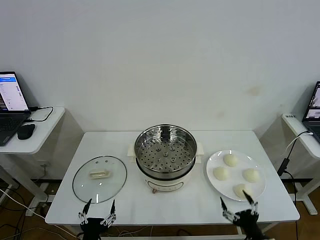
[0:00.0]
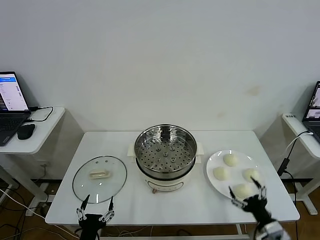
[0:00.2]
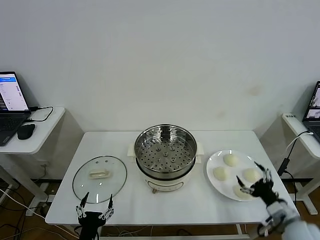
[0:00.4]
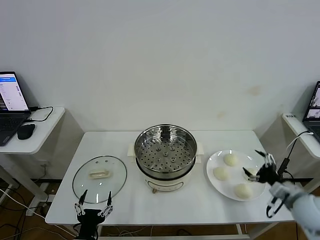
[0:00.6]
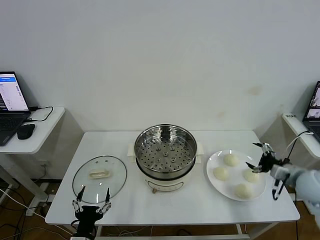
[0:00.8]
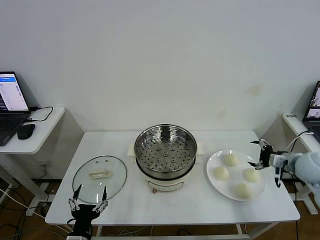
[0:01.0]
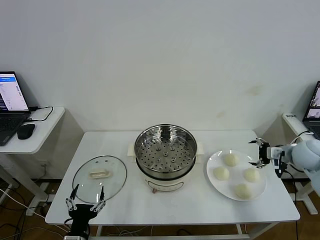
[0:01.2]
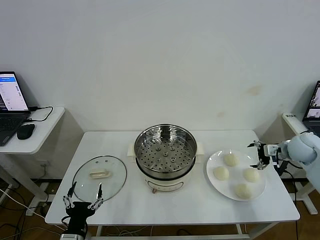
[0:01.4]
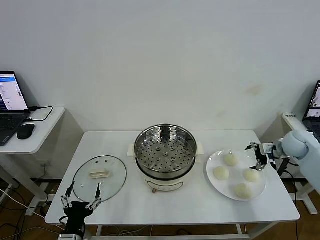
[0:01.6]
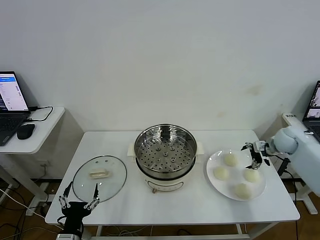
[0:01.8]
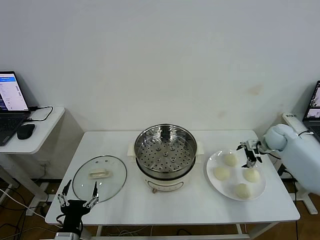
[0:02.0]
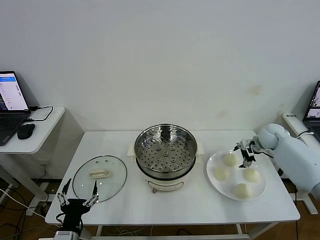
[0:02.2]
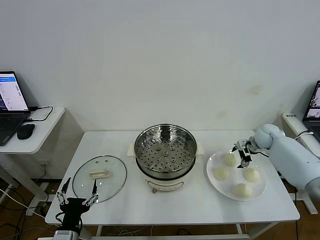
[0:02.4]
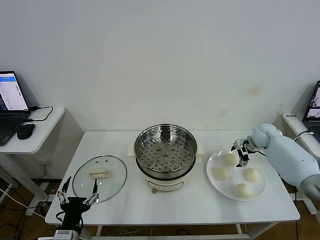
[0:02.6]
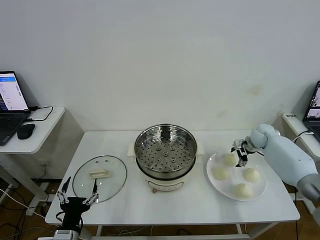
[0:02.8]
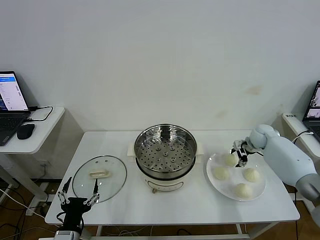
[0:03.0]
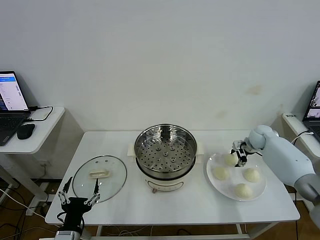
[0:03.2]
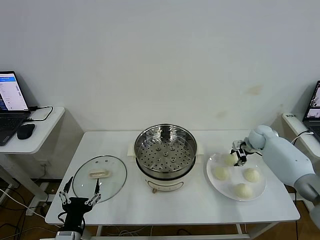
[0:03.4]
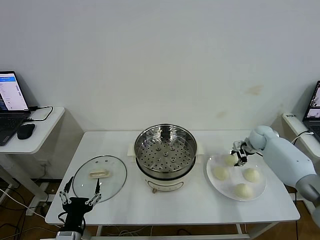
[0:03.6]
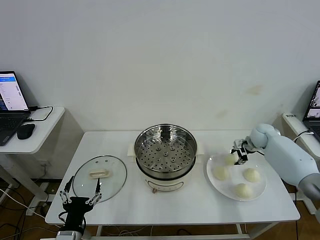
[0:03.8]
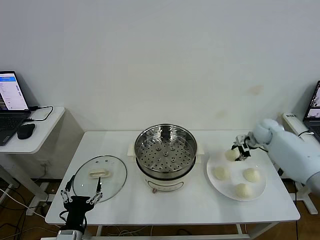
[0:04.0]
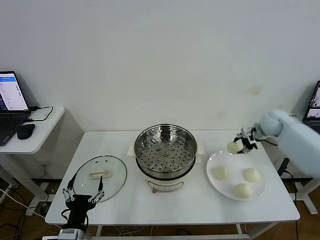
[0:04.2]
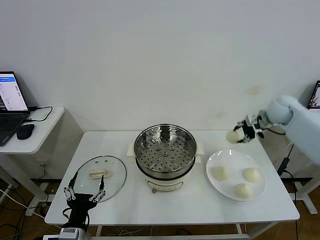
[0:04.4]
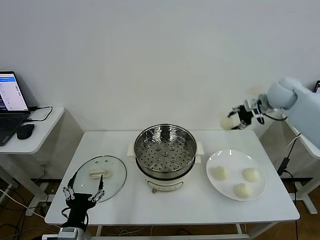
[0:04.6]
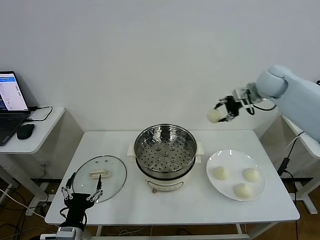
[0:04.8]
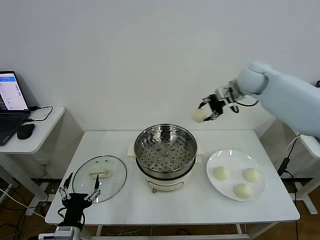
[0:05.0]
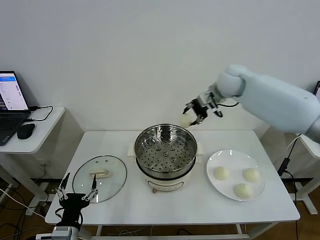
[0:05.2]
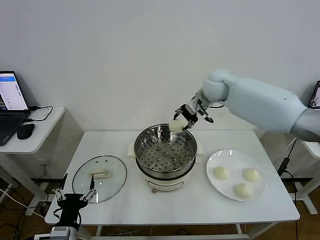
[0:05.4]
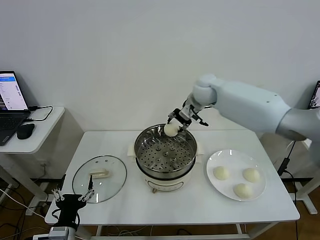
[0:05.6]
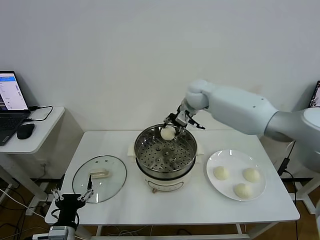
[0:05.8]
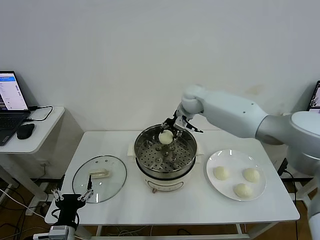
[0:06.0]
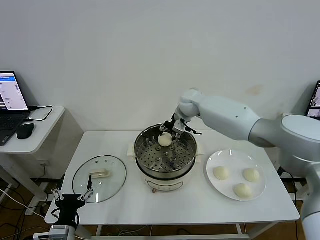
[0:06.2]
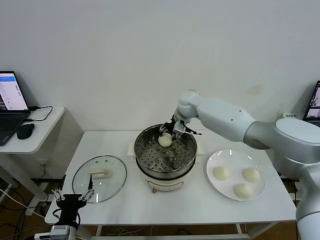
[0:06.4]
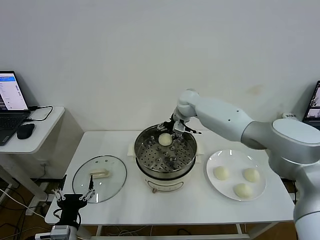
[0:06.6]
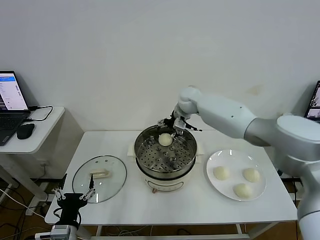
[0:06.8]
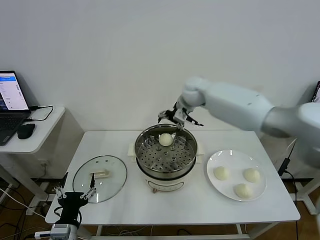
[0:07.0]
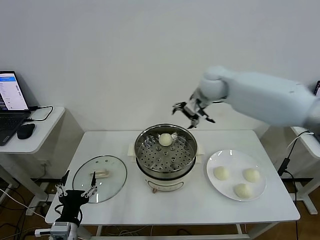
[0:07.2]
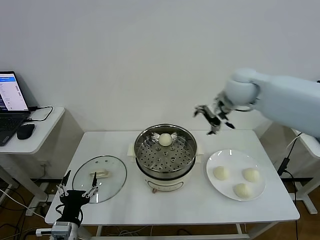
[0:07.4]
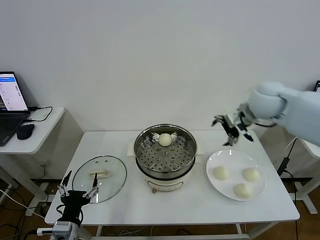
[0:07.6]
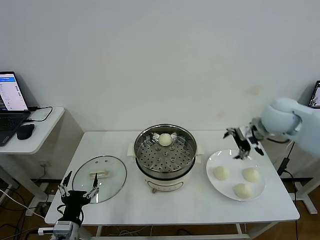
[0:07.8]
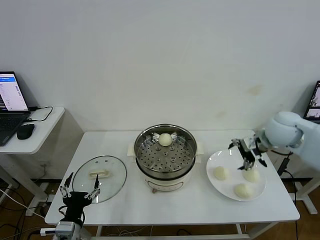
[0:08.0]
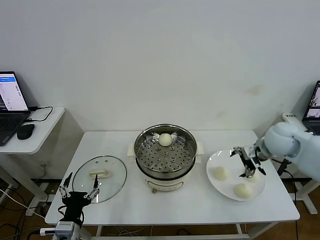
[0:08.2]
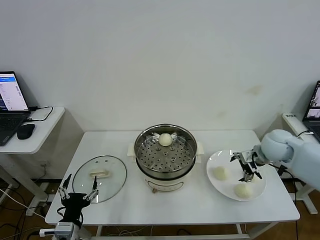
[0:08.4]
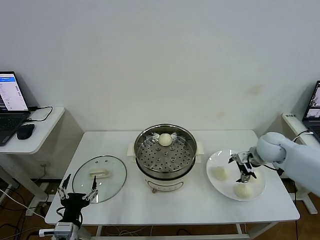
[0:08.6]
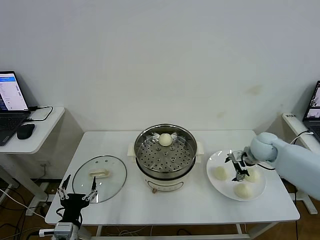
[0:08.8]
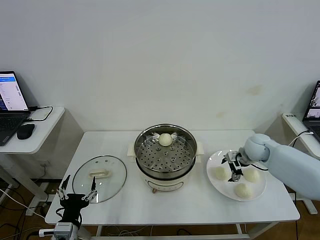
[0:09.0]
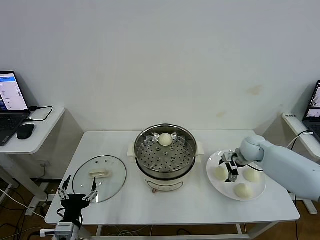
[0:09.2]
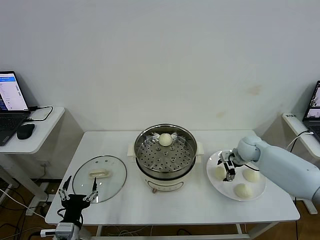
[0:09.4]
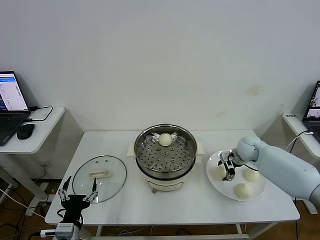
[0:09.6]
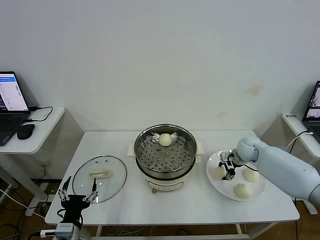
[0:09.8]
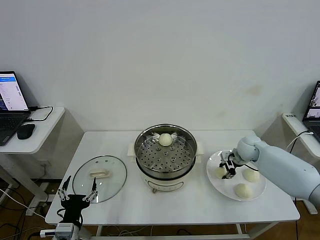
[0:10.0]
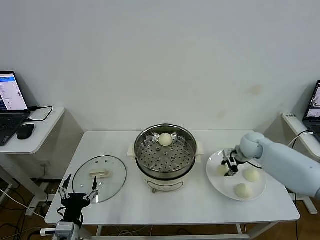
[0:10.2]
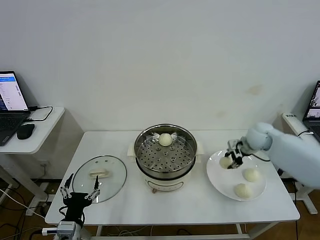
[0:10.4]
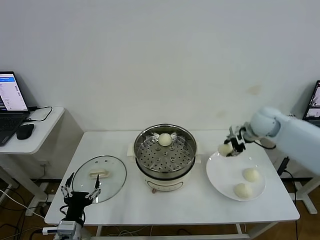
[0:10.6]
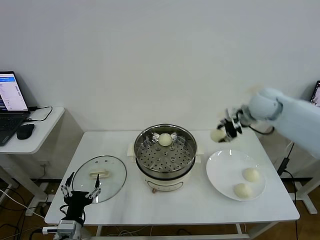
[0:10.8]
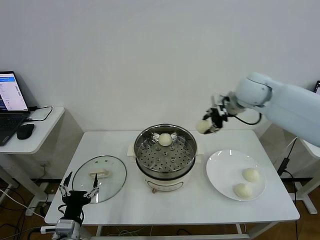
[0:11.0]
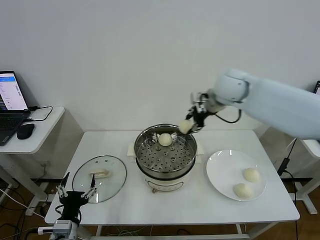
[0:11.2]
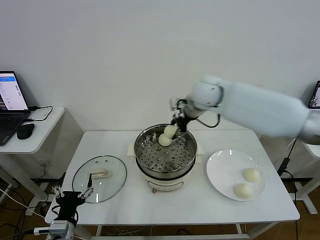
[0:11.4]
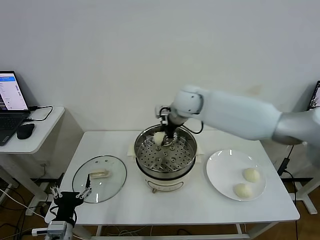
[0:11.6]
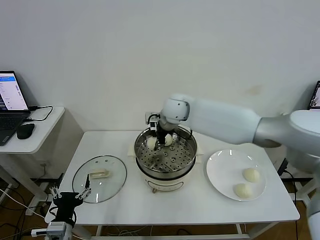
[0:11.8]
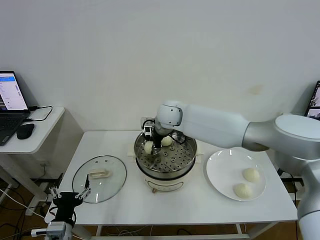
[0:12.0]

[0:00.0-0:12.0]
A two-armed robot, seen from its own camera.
Step, 0.0 to 3.8 s: Grasp the baozi in the plate with right gripper.
Step, 4.0 to 7.0 s: Place the baozi on the steamer with right gripper.
Step, 7.4 to 10.0 s: Grasp the baozi in the plate with right gripper.
1.6 to 3.0 s: The right gripper heads forward, downward and to the left, covering roughly 15 cm, and closes.
3.0 to 4.4 s: The right gripper moves upward, approximately 15 cm, and closes its fingers.
4.4 to 6.0 s: The right gripper heads to the left, covering some 30 cm.
6.0 to 7.6 s: The right gripper travels to the right, backward and upward by approximately 25 cm, and opens its fingers.
7.6 to 9.0 s: The right gripper travels downward by roughly 20 cm.
9.0 to 10.4 s: The right gripper closes.
10.4 to 12.0 s: The right gripper moves to the left, about 35 cm.

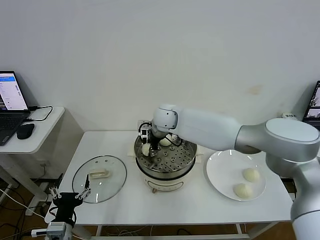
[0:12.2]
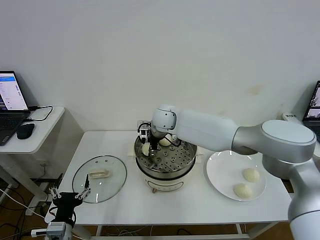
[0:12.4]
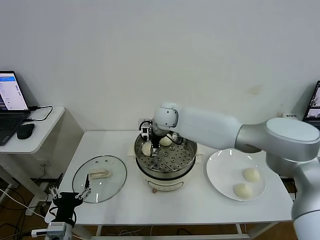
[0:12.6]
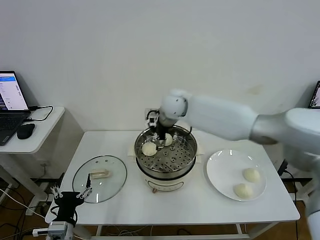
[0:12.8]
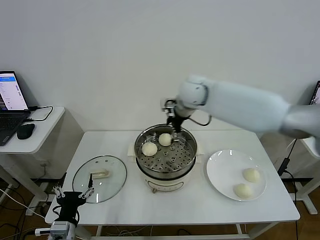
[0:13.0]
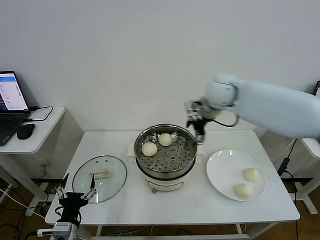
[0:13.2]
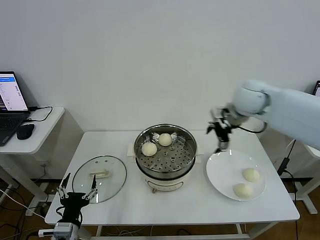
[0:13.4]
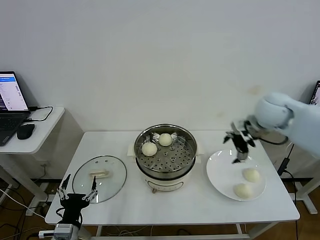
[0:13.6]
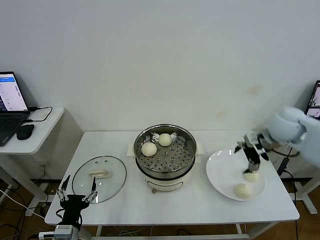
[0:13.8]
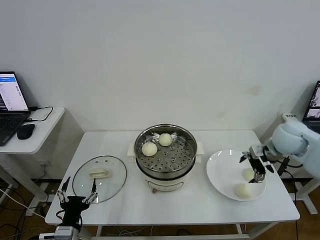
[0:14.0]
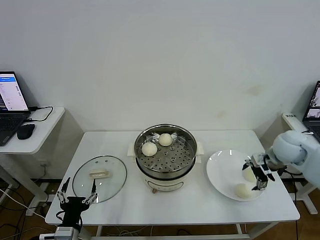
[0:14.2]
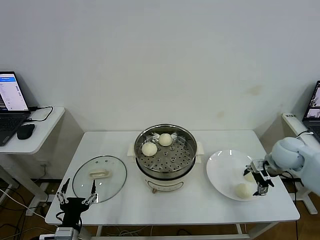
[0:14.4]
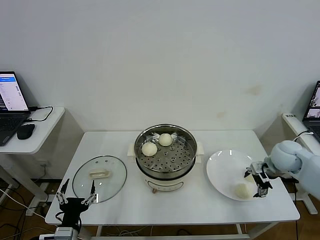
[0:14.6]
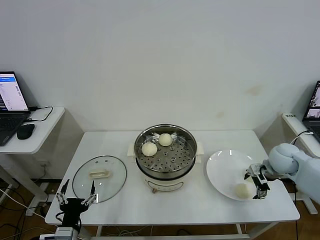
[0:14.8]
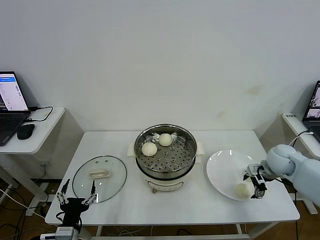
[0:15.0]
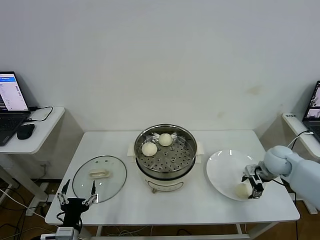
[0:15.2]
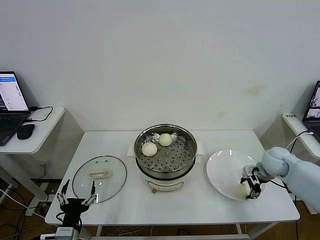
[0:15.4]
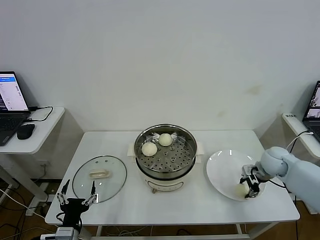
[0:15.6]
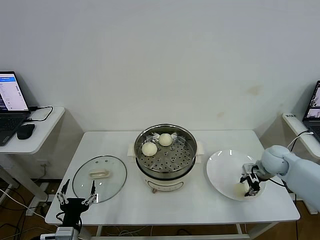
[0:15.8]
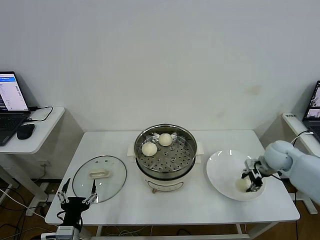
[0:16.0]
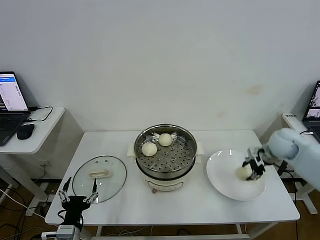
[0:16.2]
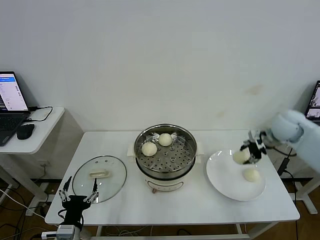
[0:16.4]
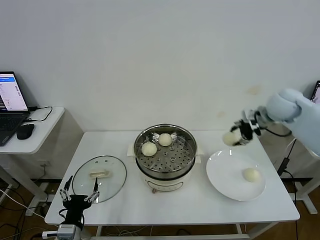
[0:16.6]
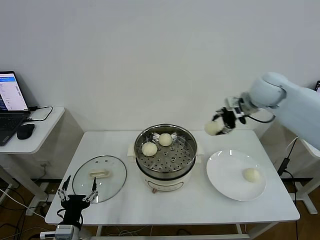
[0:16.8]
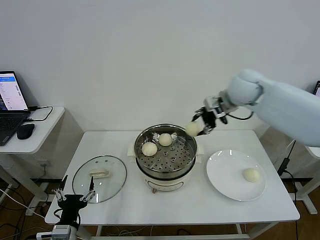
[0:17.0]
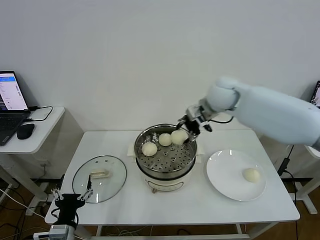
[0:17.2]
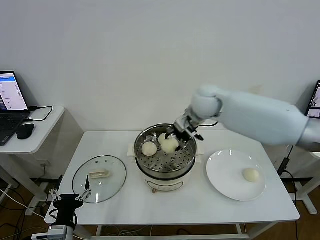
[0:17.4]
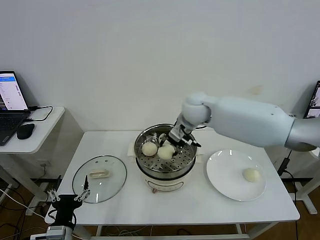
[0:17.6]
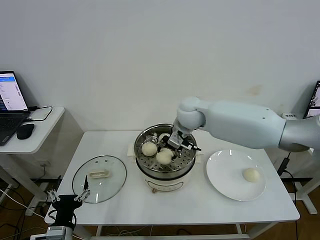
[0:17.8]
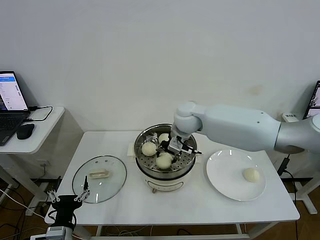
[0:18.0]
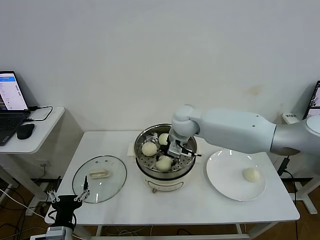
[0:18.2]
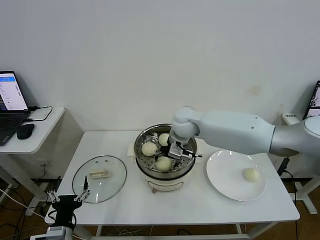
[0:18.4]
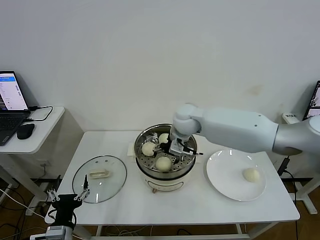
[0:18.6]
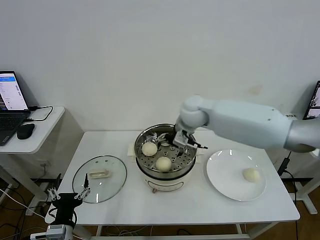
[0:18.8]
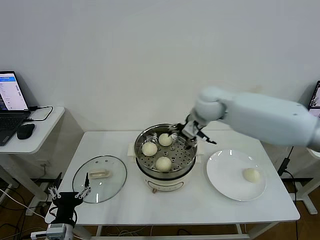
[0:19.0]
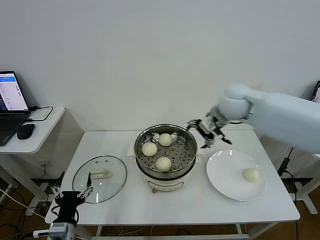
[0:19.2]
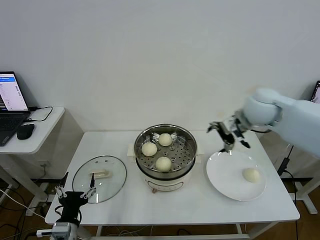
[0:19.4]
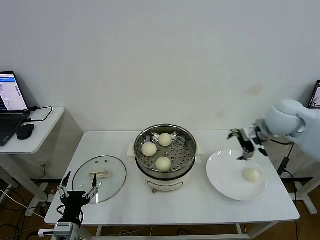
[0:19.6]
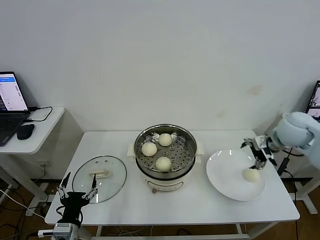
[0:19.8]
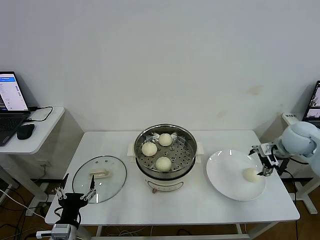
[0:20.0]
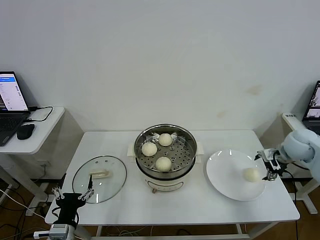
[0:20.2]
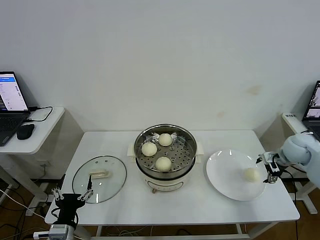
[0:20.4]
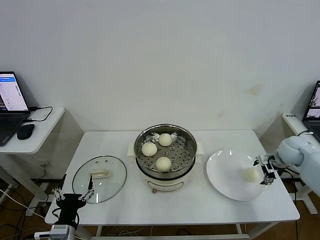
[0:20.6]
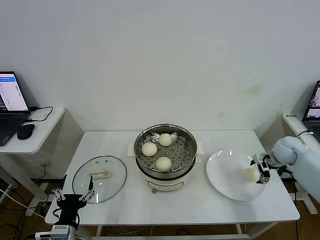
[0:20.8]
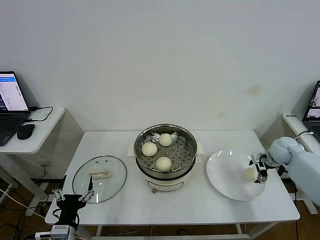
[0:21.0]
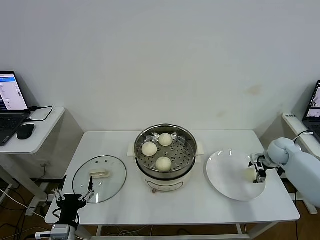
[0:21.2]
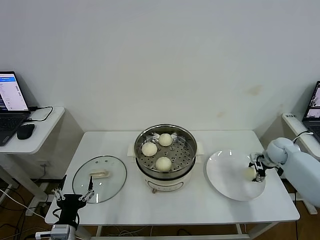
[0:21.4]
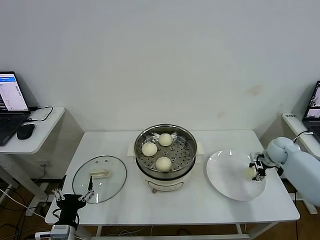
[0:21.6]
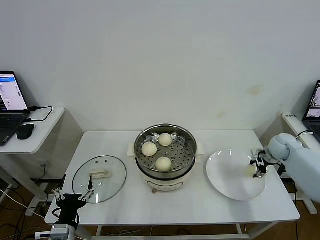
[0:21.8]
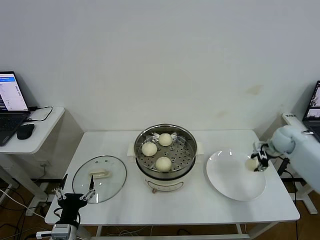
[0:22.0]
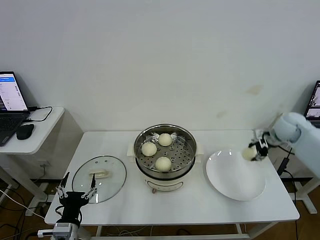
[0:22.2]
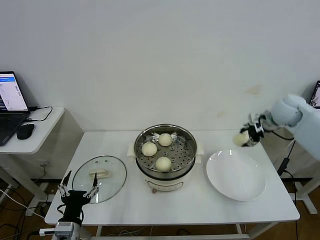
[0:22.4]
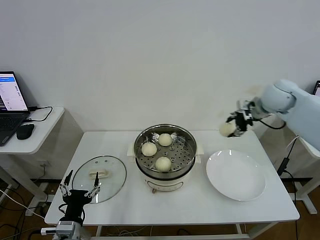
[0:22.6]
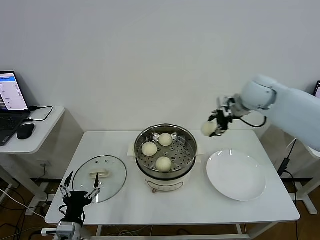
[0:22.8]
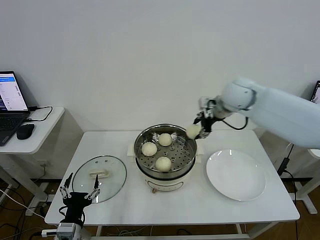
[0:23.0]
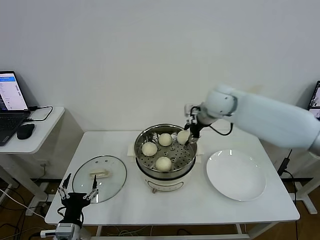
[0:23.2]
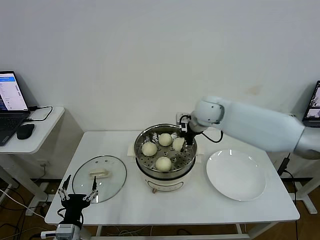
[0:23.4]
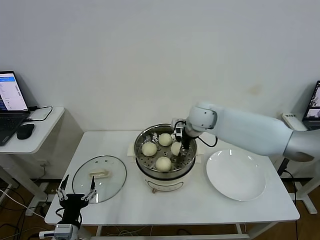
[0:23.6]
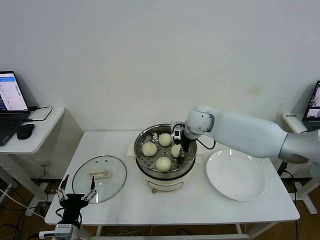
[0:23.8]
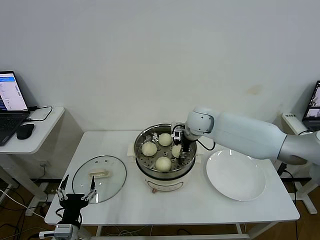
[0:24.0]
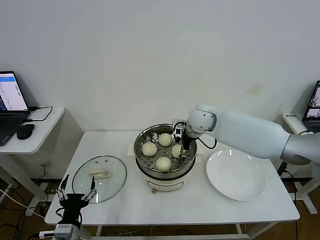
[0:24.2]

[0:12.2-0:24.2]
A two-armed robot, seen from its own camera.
Step, 13.0 to 15.8 s: Grasp the baozi in the plate with right gripper.
Step, 16.0 to 19.0 s: Place the baozi on the steamer with right gripper.
Step, 19.2 to 21.4 s: Grasp the baozi in the plate with right gripper.
12.2 to 13.8 s: The right gripper heads to the right, covering approximately 35 cm, and opens.
13.8 to 15.2 s: The right gripper is displaced downward by roughly 15 cm.
15.2 to 16.6 s: The right gripper is displaced upward by approximately 20 cm, and closes up.
16.6 to 18.2 s: The right gripper moves to the left, approximately 30 cm.
18.2 to 19.8 s: The right gripper is displaced to the right by some 30 cm, and opens its fingers.
19.8 to 21.2 s: The right gripper goes some 20 cm downward and to the right.
21.2 to 22.6 s: The right gripper moves upward and to the left, some 25 cm, and closes its fingers.
22.6 to 24.2 s: The right gripper goes roughly 25 cm to the left and downward, and opens up.
